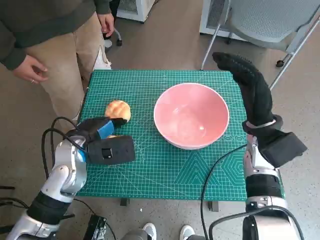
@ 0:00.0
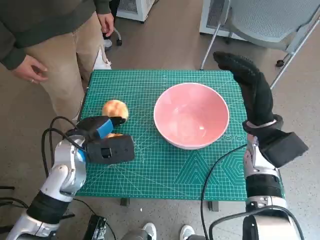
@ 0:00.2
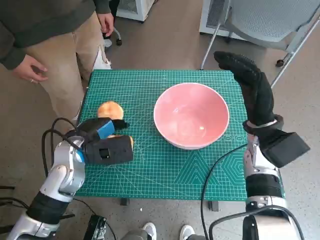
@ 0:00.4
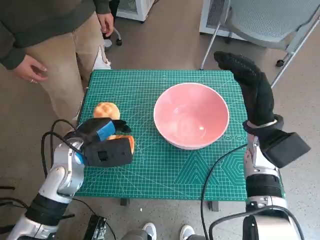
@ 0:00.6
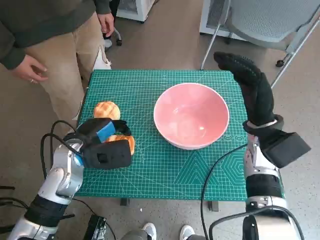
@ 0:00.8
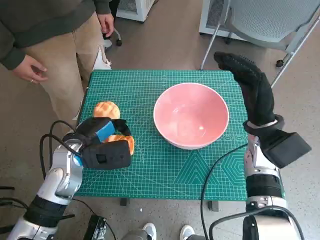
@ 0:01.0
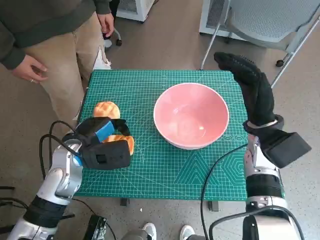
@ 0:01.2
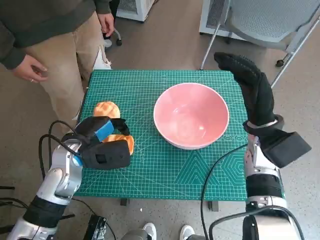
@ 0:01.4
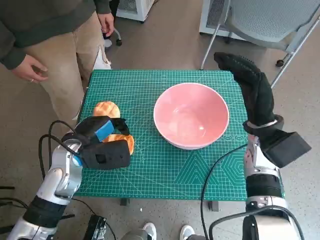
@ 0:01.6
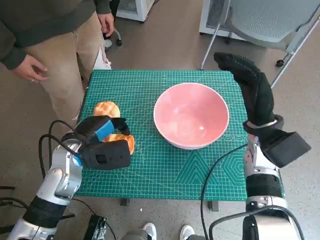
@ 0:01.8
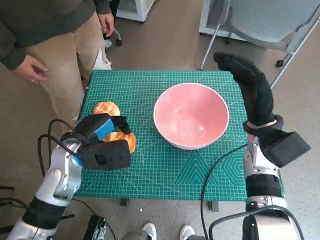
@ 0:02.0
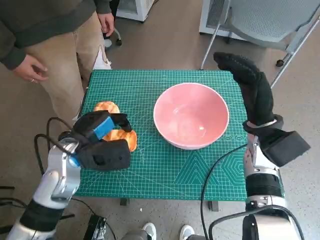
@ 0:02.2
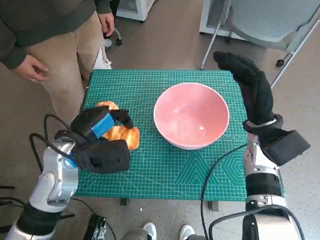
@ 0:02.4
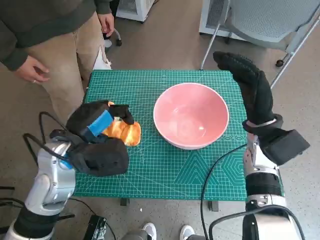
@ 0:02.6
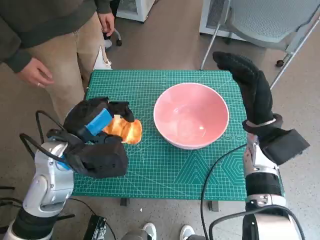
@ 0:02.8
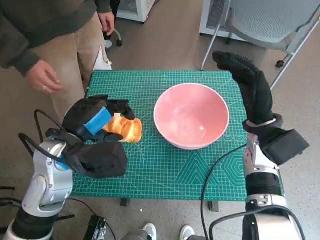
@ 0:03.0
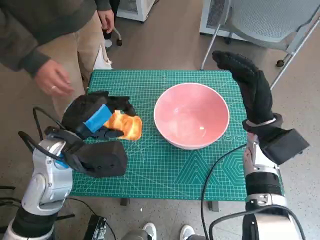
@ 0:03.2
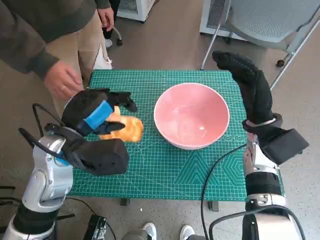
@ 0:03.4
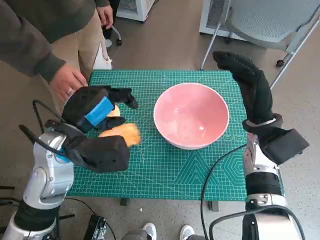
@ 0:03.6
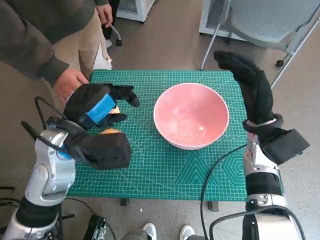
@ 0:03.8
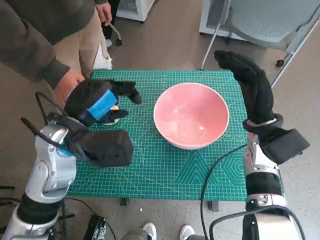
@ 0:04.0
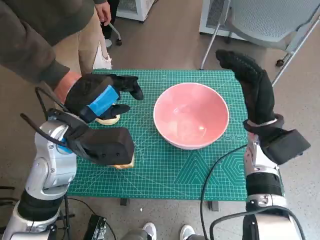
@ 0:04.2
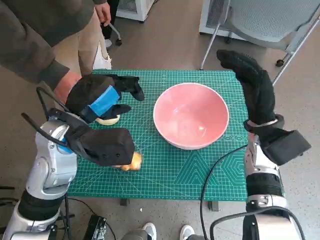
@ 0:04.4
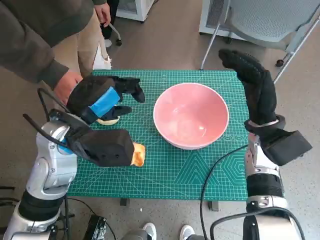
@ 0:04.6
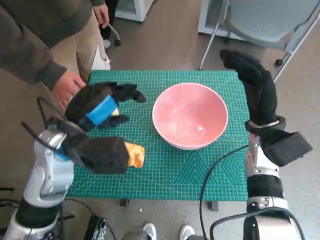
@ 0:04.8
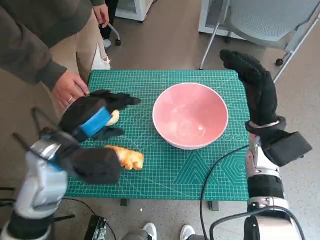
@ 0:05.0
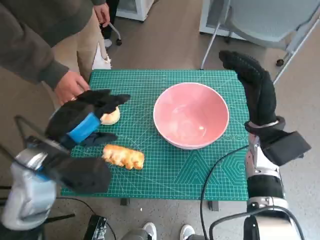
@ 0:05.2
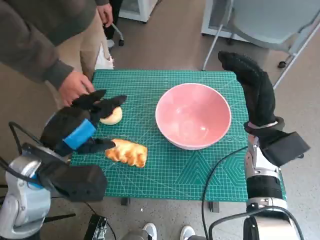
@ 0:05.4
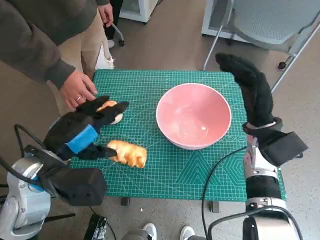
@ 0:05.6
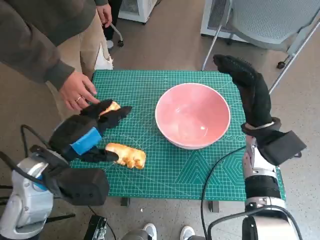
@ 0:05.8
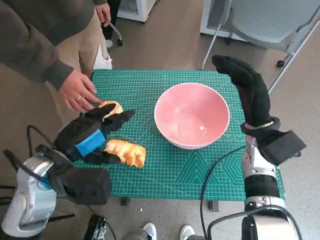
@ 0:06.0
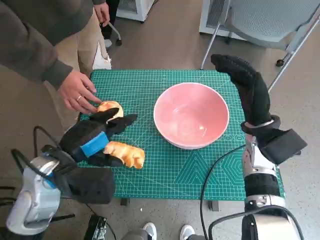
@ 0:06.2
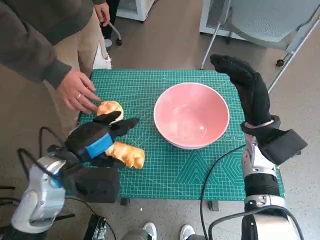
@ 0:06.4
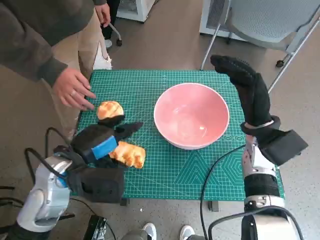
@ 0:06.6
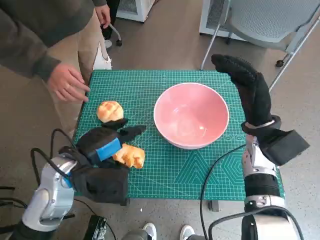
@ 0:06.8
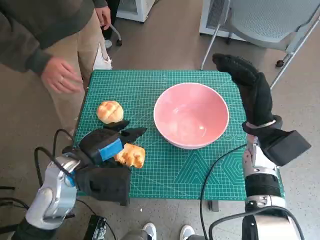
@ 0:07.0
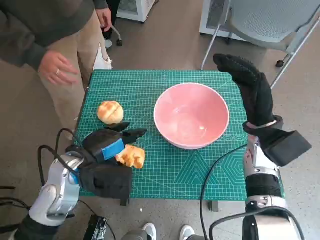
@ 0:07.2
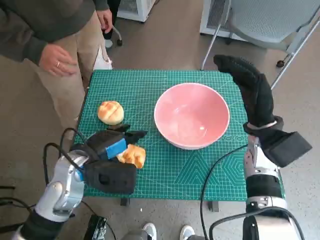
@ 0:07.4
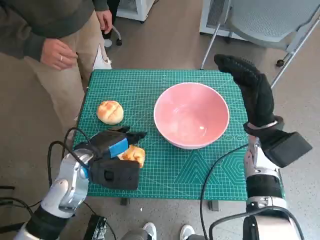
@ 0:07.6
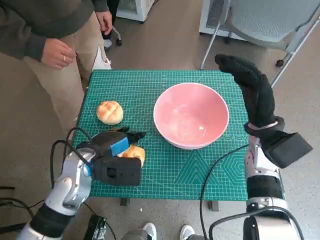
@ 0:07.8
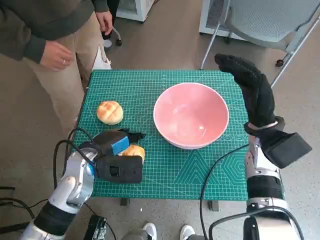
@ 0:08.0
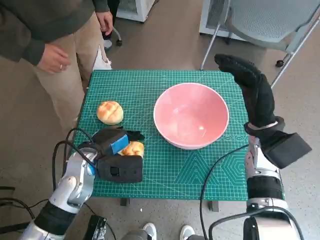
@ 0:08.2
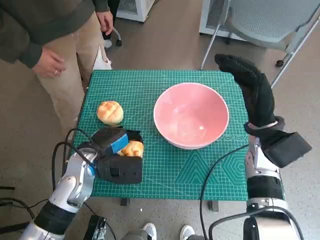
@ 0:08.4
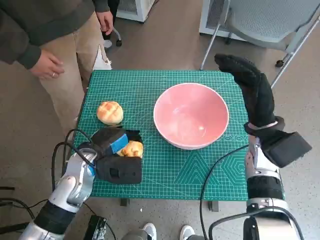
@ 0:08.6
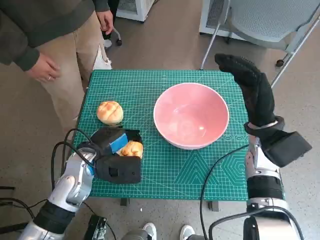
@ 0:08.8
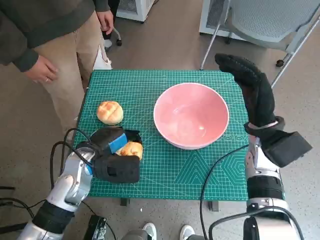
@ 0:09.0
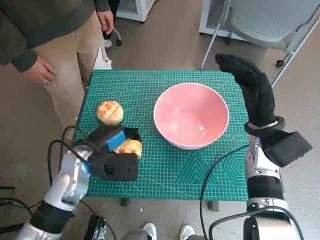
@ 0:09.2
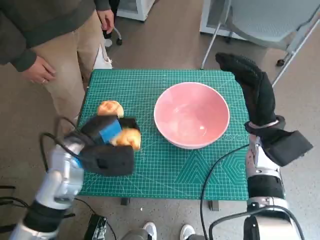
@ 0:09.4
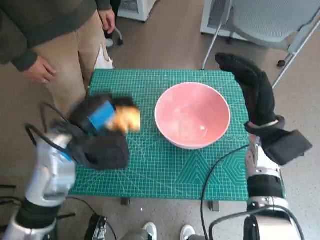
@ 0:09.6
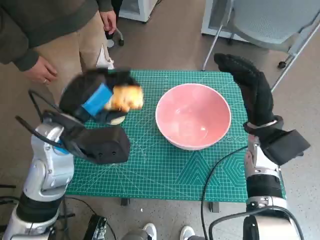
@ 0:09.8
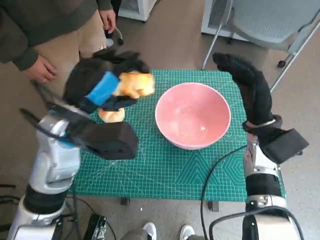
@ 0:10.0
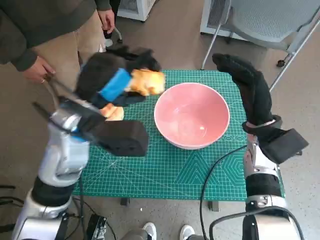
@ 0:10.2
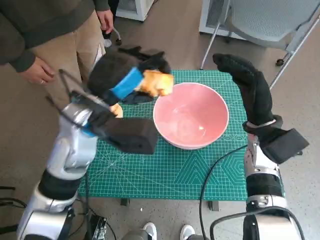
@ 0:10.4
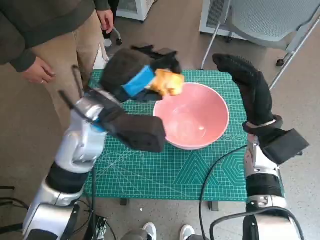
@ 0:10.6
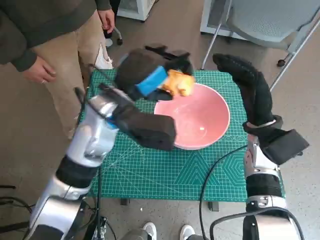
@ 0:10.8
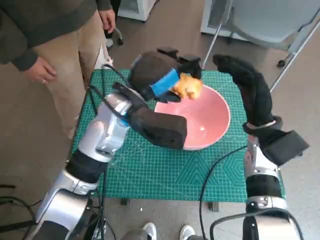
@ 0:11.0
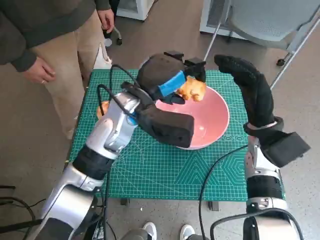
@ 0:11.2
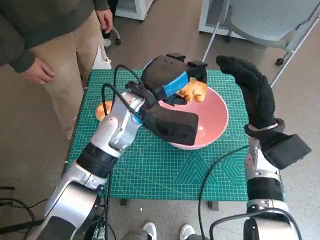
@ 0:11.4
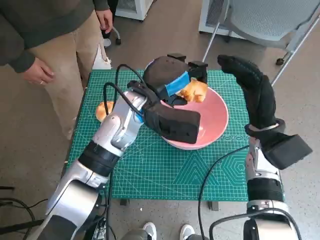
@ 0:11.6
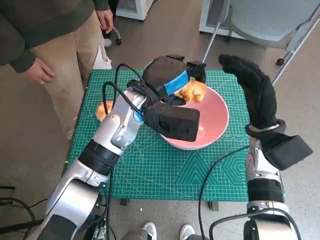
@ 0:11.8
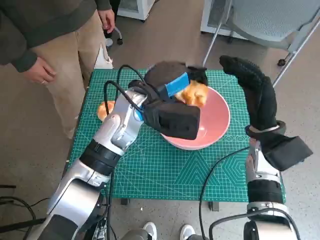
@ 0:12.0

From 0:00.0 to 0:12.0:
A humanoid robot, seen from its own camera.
Step, from 0:00.0 to 0:08.4: Grasp the long bread with left hand.
From 0:00.0 to 0:01.6: The hands make only small movements.
From 0:01.6 to 0:03.0: The left hand moves upward, approximately 5 cm.
From 0:03.0 to 0:04.4: The hands make only small movements.
From 0:04.4 to 0:06.0: The left hand changes place by roughly 5 cm.
From 0:06.0 to 0:07.6: The left hand moves downward, roughly 5 cm.
From 0:07.6 to 0:09.0: The hands move only a little.
From 0:09.0 to 0:10.4: The left hand travels upward by about 15 cm.
From 0:10.4 to 0:12.0: The left hand goes about 10 cm to the right and forward.

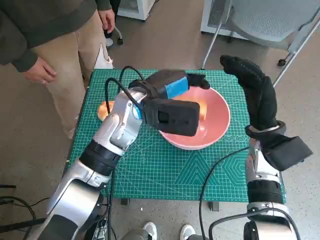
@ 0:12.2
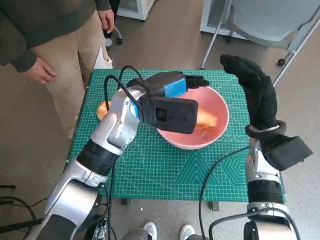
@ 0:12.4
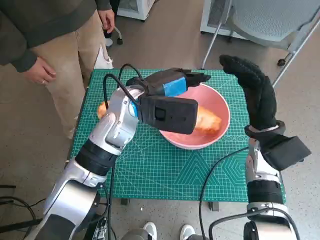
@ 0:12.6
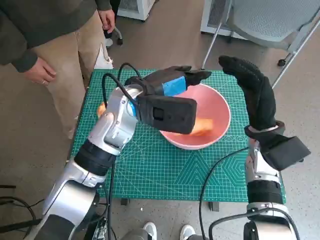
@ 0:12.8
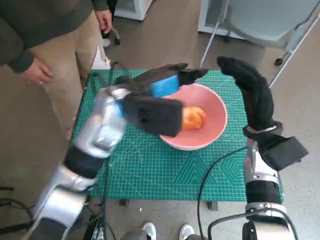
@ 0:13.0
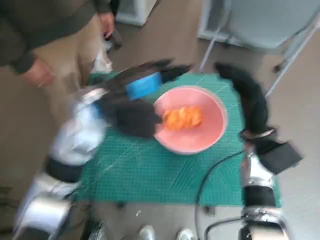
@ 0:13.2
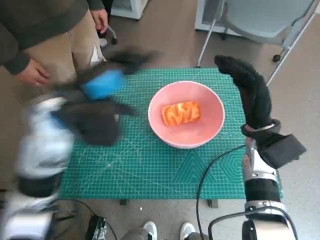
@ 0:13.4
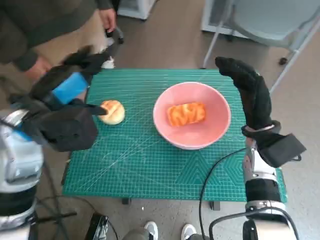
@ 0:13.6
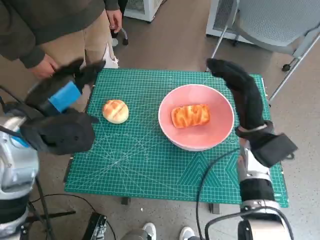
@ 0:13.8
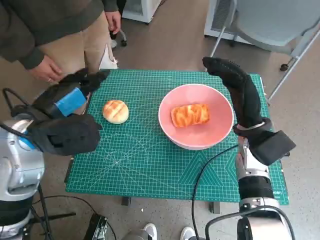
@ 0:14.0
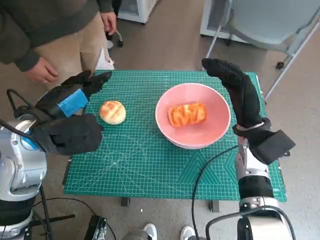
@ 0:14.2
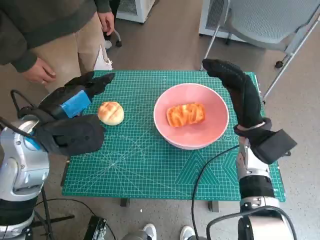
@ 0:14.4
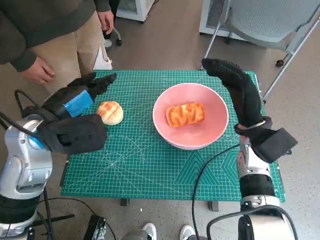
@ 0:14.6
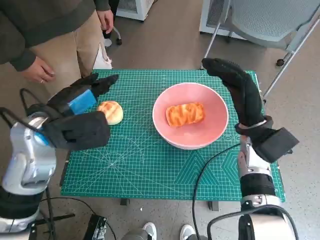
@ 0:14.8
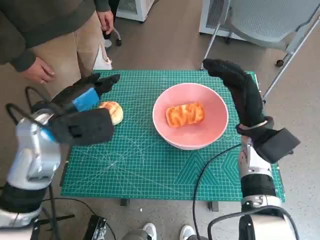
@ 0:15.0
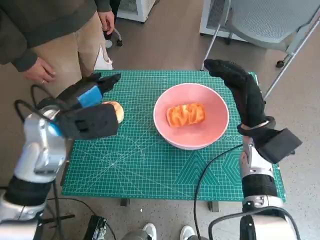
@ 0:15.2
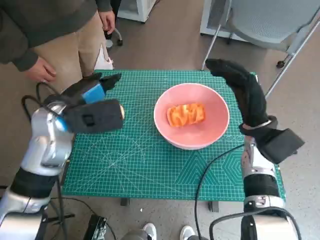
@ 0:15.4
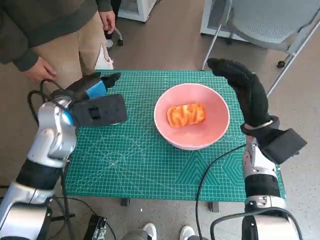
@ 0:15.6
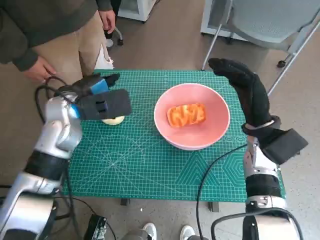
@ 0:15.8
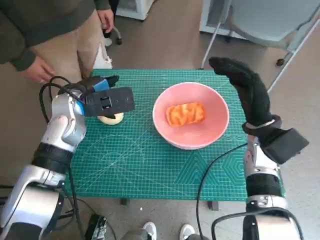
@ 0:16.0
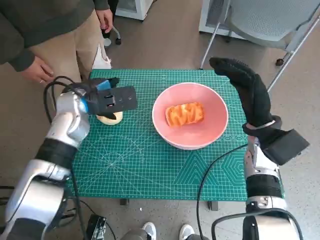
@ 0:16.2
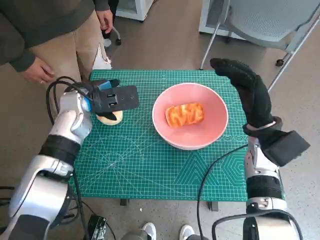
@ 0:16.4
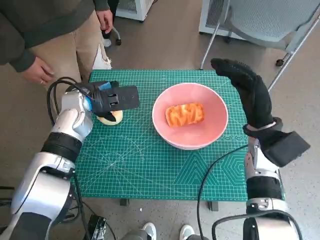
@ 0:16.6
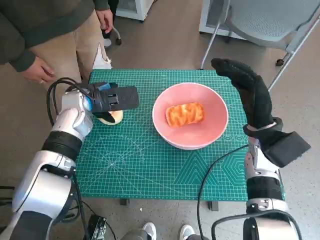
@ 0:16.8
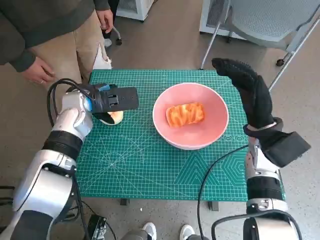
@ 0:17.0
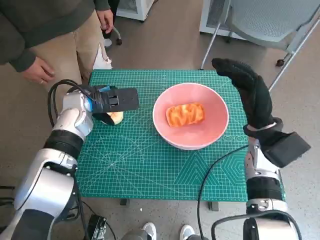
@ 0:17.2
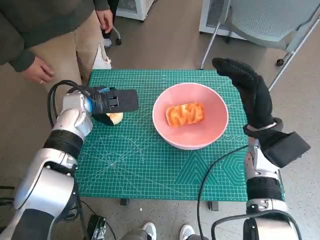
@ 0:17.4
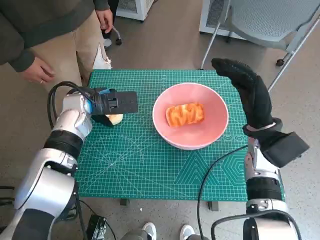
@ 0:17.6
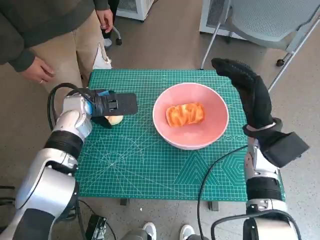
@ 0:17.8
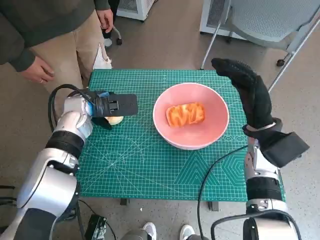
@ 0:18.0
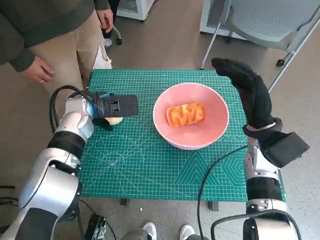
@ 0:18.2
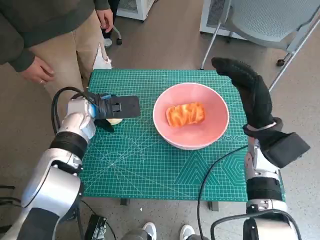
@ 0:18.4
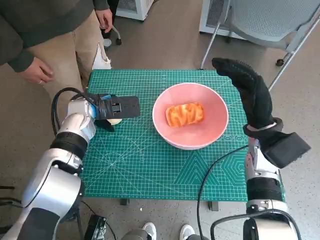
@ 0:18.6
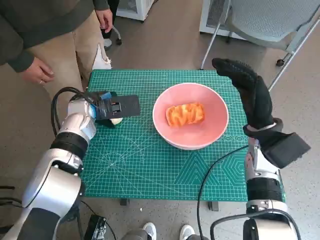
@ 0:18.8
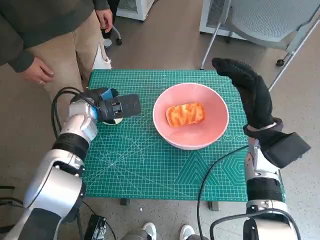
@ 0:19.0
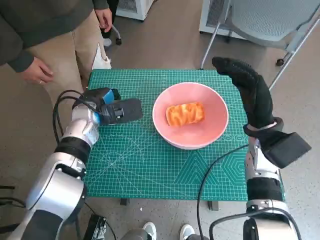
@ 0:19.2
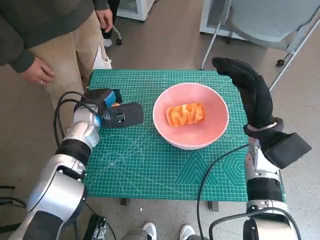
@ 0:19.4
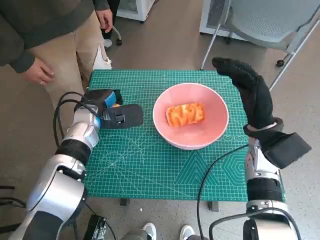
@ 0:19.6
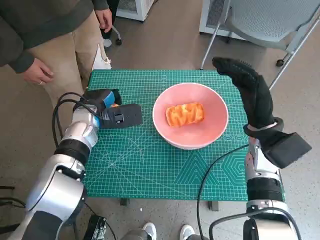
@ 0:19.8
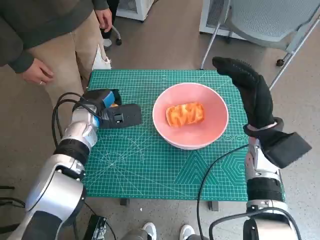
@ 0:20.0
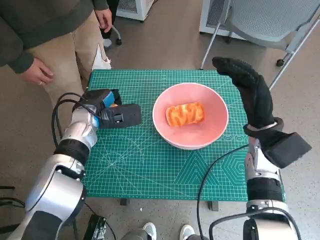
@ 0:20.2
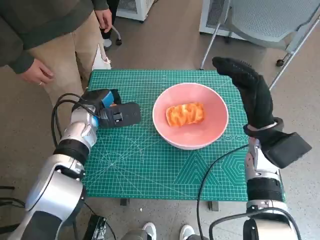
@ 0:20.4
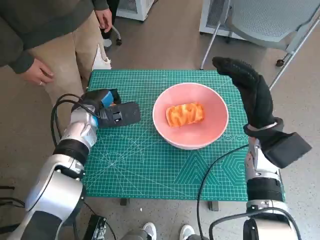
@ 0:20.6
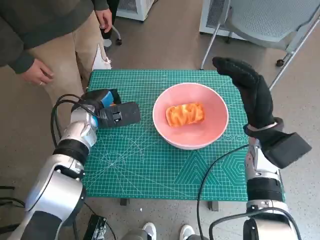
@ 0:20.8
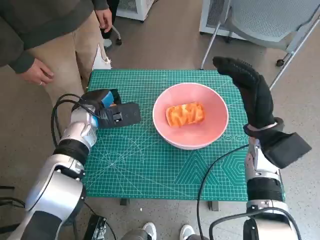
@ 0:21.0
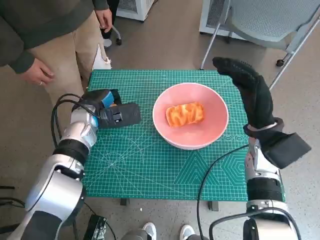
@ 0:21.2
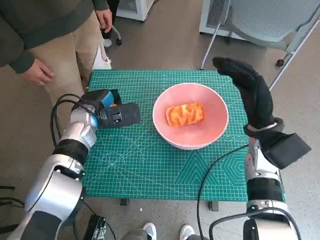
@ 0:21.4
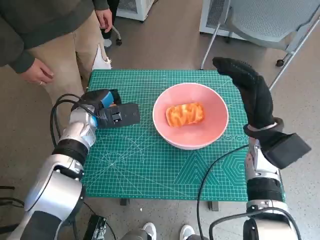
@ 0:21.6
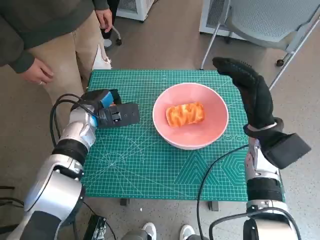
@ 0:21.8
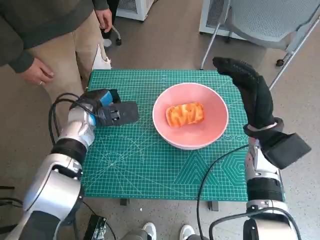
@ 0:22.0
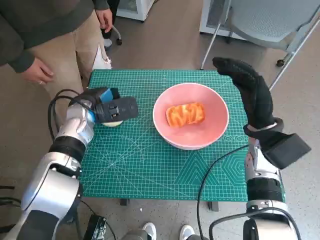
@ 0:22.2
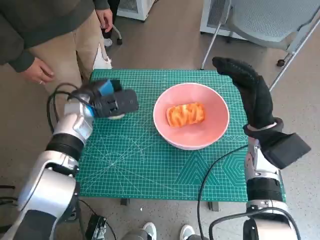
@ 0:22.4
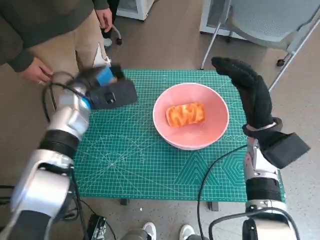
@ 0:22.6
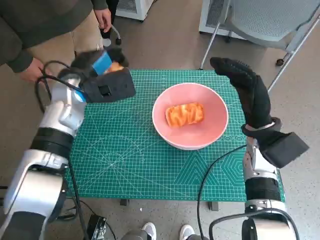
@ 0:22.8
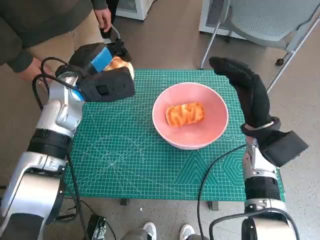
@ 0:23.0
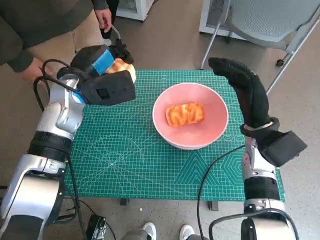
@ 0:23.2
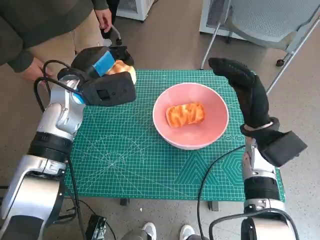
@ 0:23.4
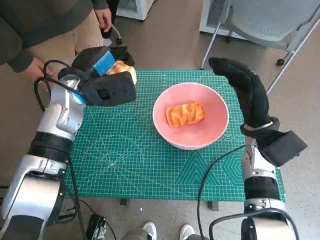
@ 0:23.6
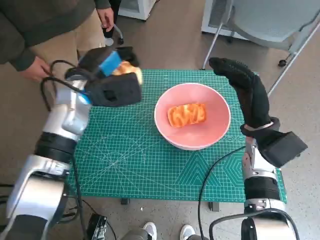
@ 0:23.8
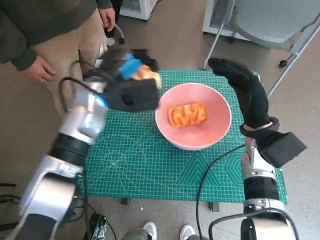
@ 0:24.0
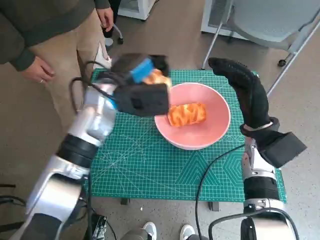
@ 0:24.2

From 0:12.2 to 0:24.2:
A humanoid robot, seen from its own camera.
Step, from 0:12.8 to 0:19.2: Grasp the round bread with left hand.
From 0:12.2 to 0:13.8: The left hand shifts approximately 20 cm to the left and backward.
From 0:15.2 to 0:16.6: The left hand goes about 10 cm forward.
From 0:16.6 to 0:19.8: The hands make only small movements.
From 0:19.8 to 0:21.2: Both hands stay about where they are.
From 0:21.2 to 0:22.6: The left hand moves upward, roughly 5 cm.
From 0:22.6 to 0:24.2: The left hand shifts about 5 cm to the right.
